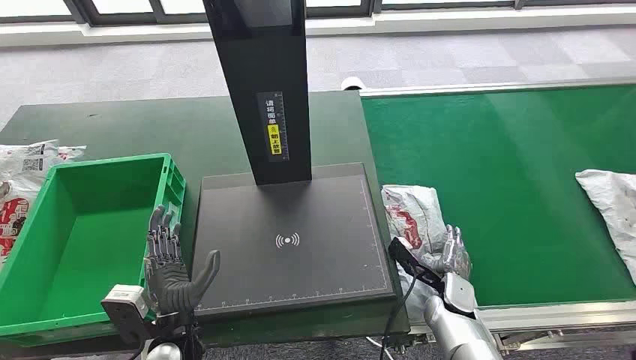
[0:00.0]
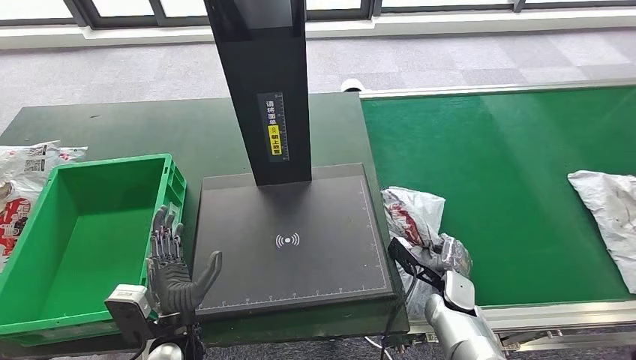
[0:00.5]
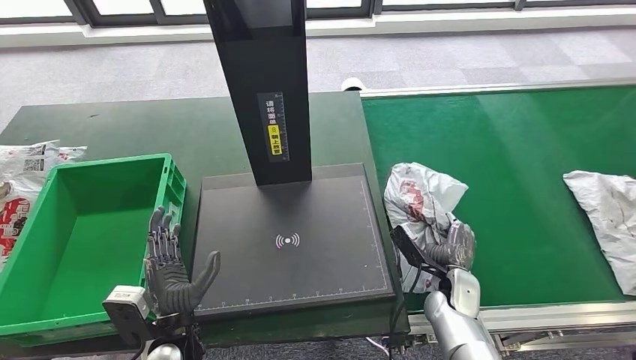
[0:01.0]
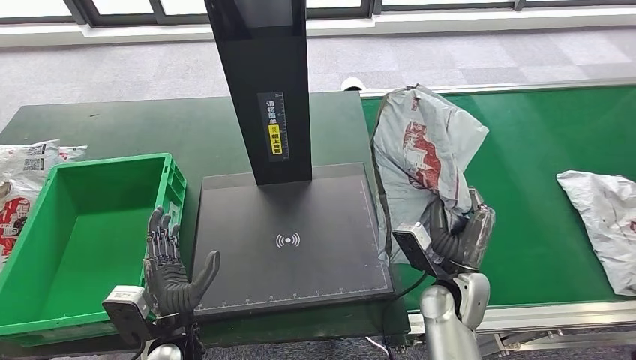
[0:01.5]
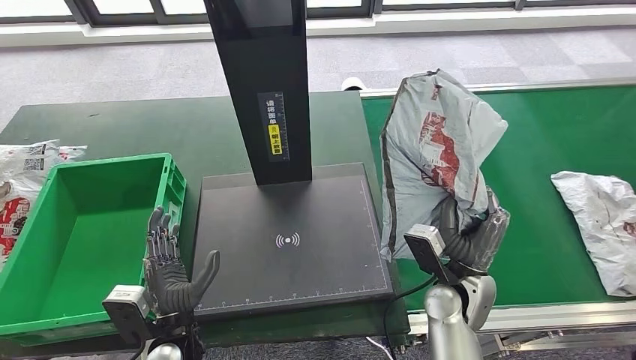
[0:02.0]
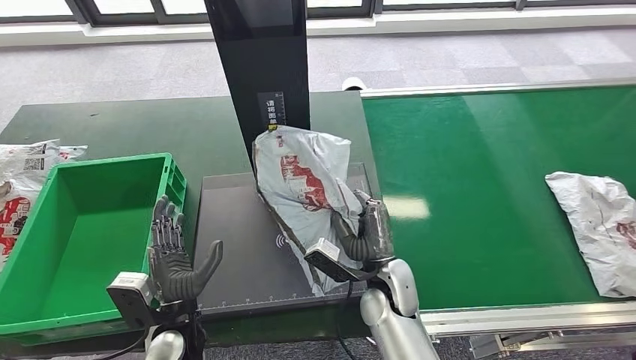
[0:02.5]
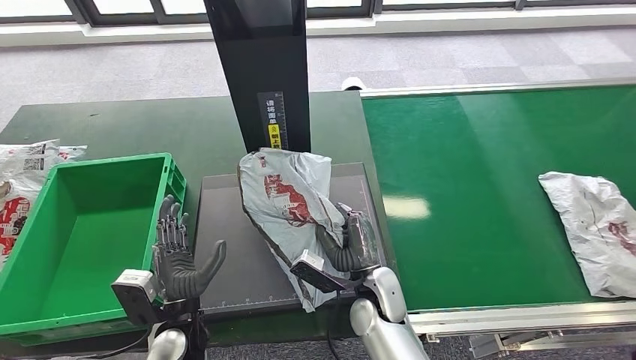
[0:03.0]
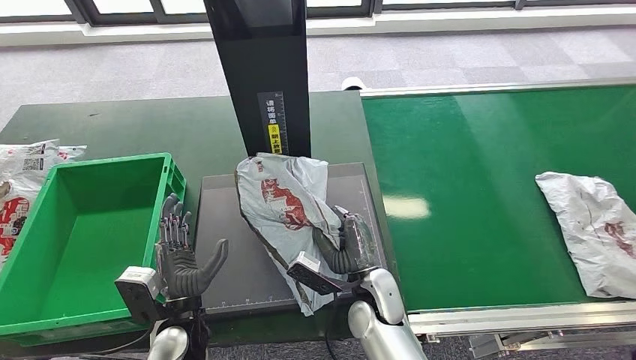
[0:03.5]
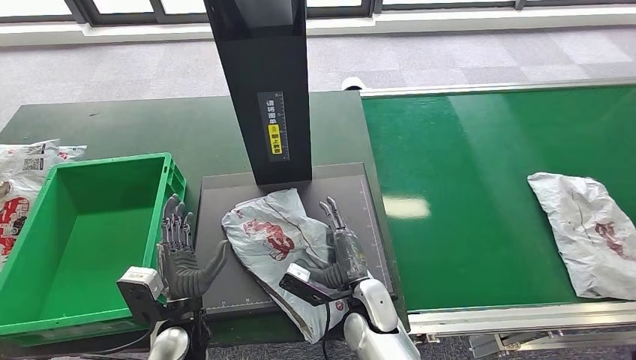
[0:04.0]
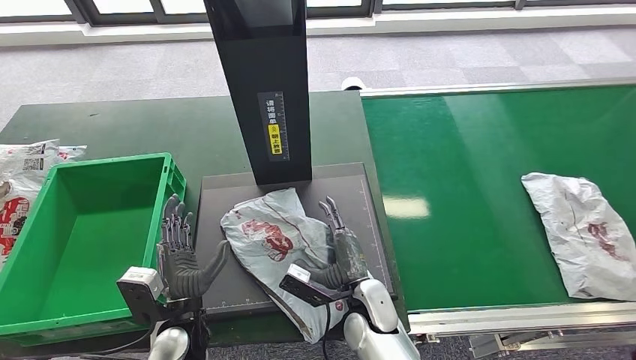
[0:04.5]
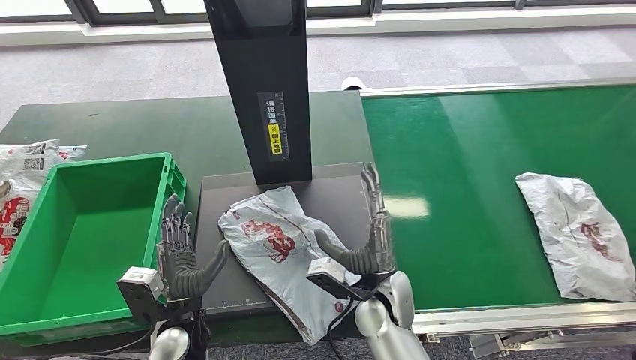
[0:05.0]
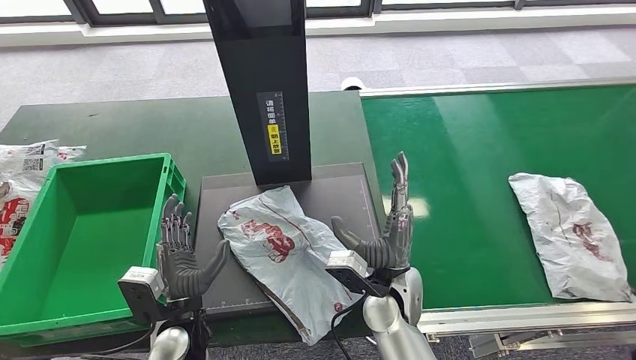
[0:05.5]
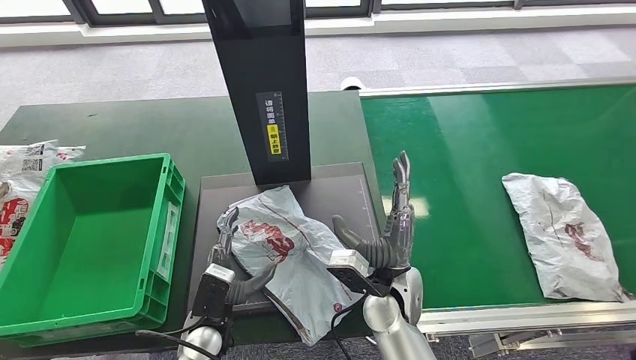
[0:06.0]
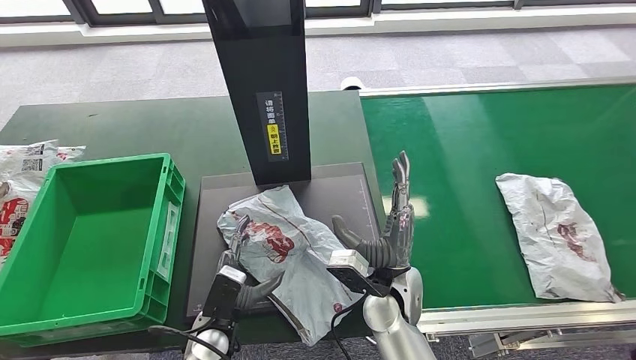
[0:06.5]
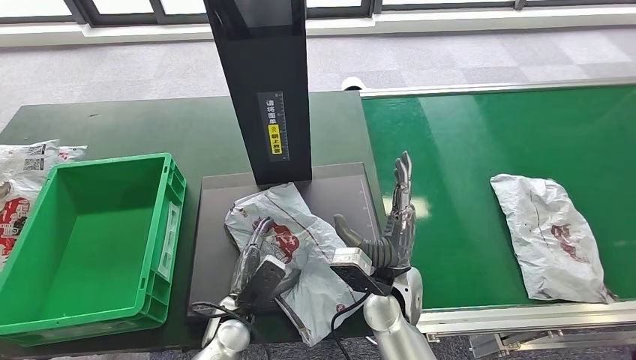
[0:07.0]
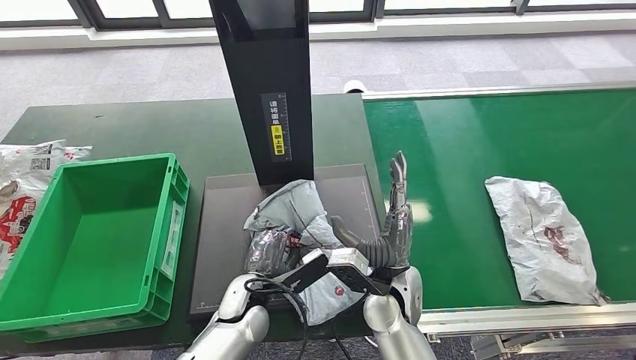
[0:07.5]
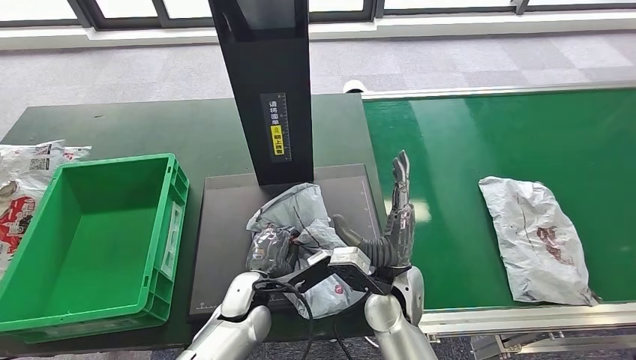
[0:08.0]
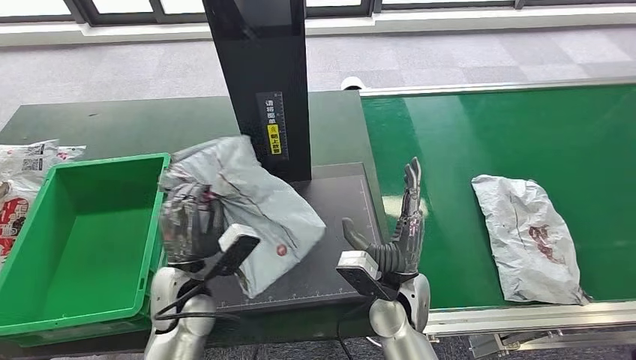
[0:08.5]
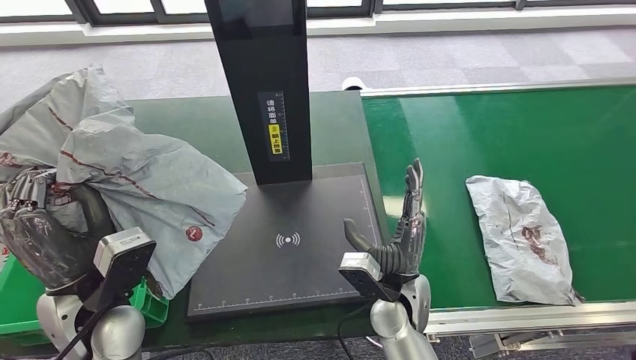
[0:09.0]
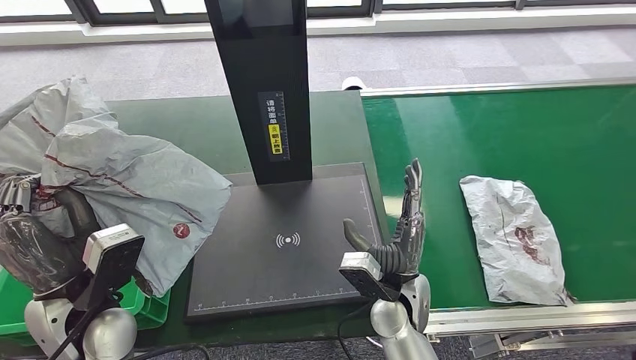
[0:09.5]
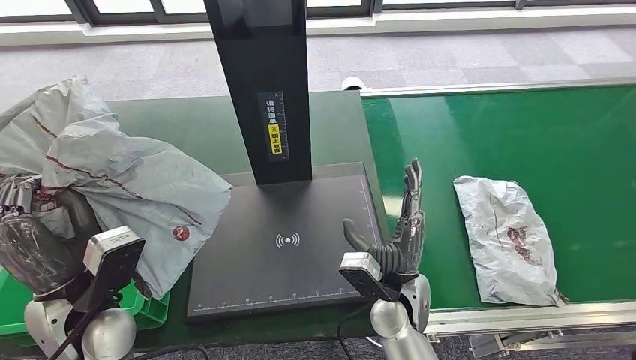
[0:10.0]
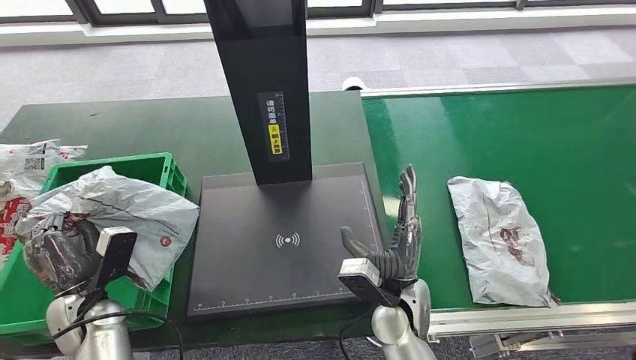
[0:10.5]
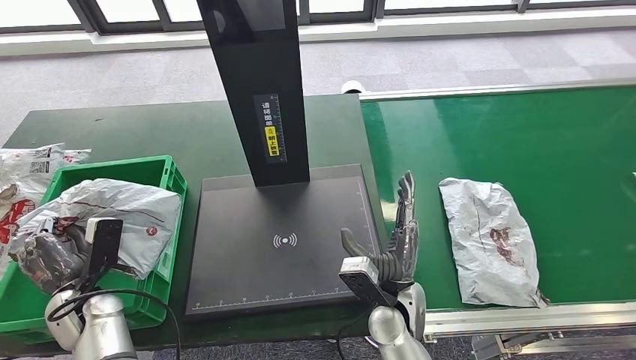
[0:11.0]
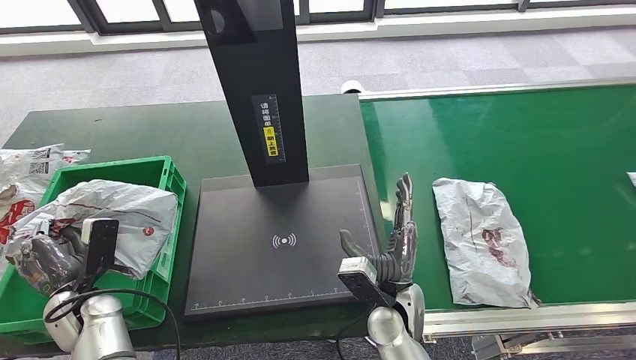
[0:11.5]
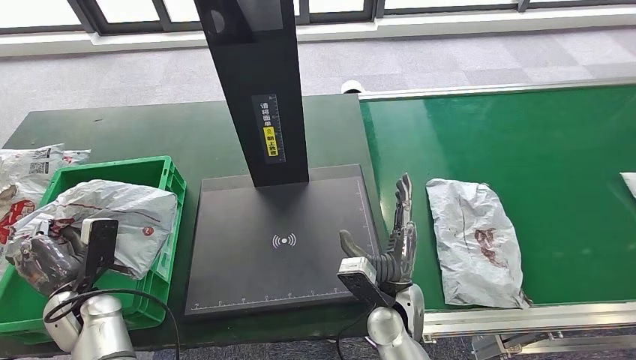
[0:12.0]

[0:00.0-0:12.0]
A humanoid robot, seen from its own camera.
Step, 0:00.0 to 0:01.5: Take the parcel off the conveyor belt.
Step, 0:02.0 to 0:04.5: Place the parcel onto the inbound machine.
Step, 0:05.0 to 0:08.5: Pick up the parcel from the inbound machine.
0:04.0 to 0:06.0: The right hand travels upward by approximately 5 cm.

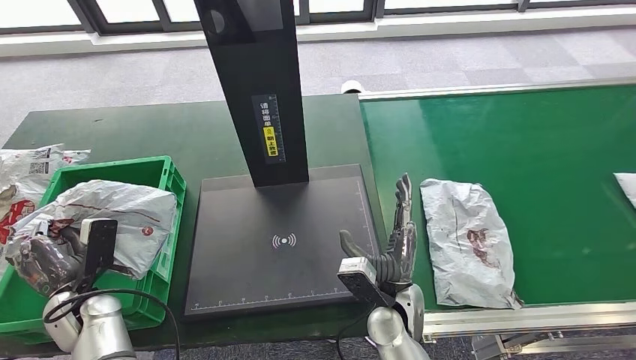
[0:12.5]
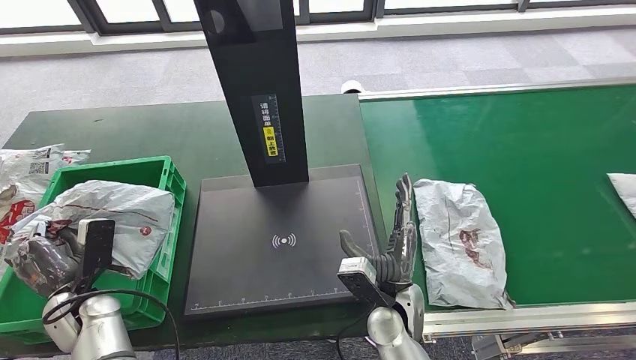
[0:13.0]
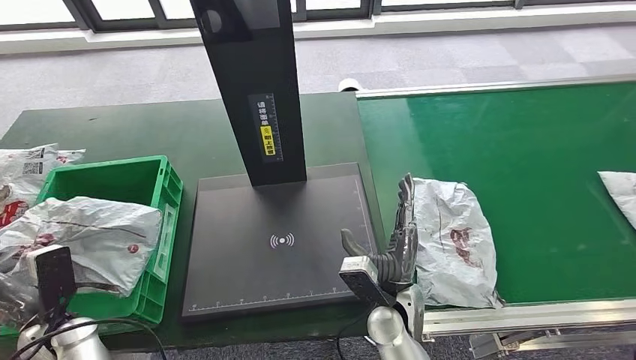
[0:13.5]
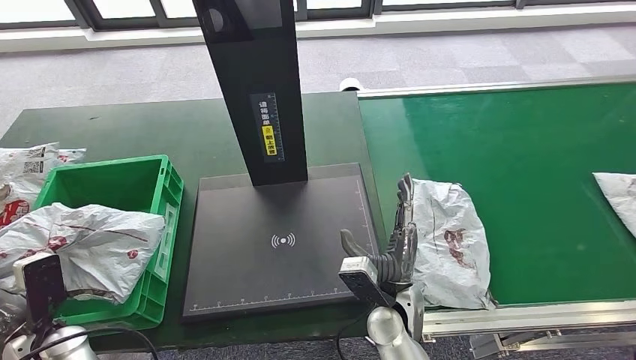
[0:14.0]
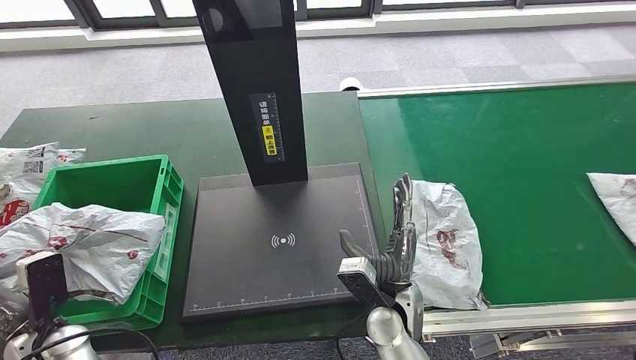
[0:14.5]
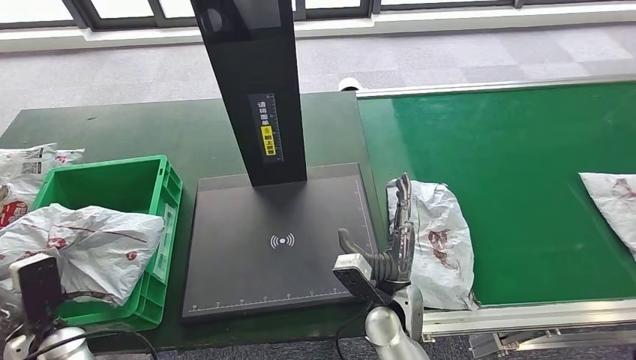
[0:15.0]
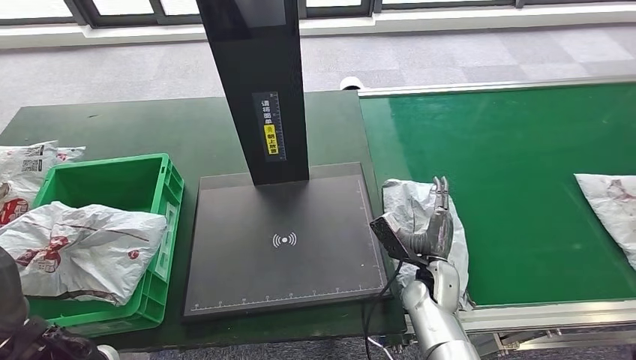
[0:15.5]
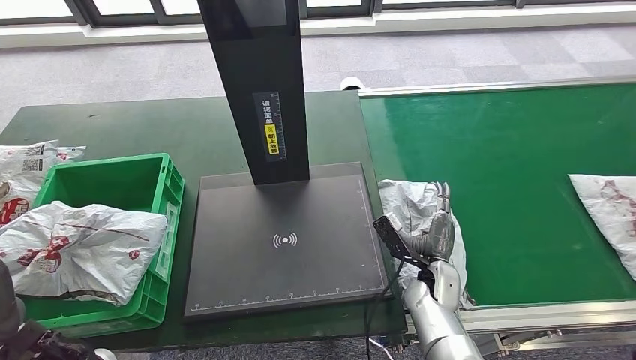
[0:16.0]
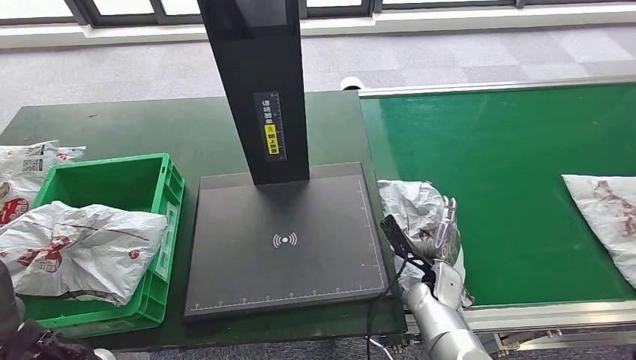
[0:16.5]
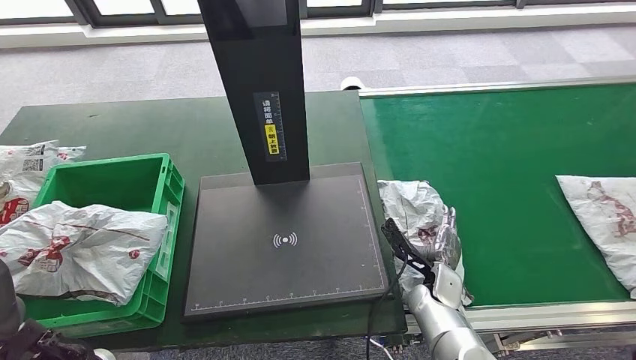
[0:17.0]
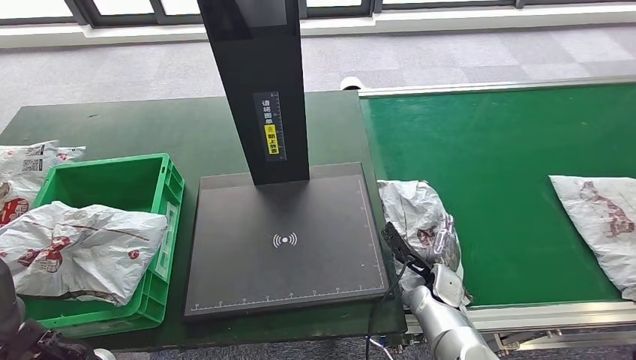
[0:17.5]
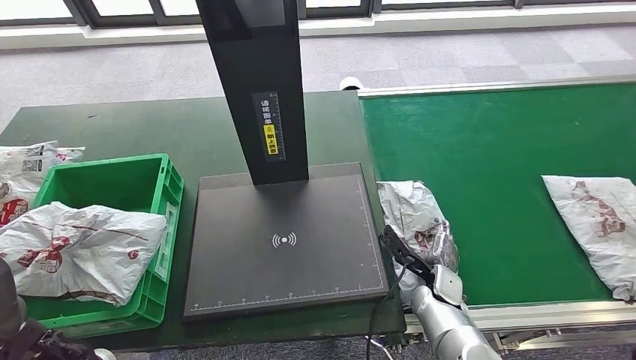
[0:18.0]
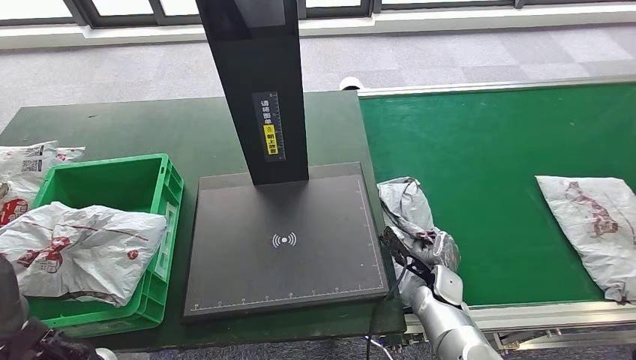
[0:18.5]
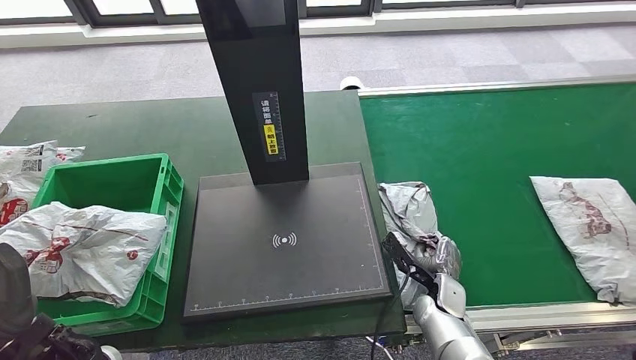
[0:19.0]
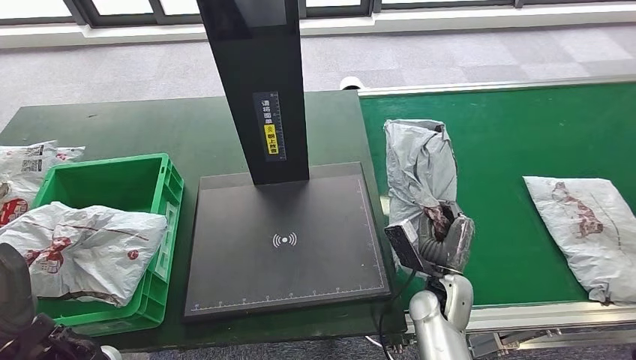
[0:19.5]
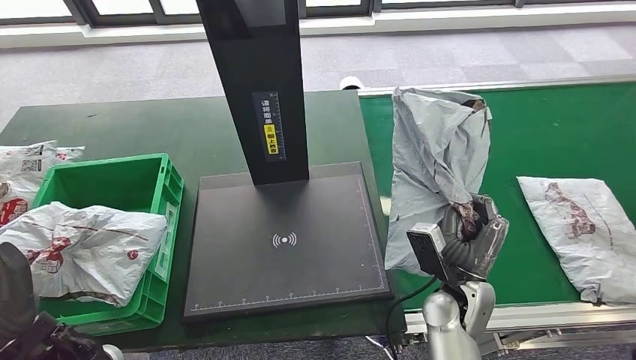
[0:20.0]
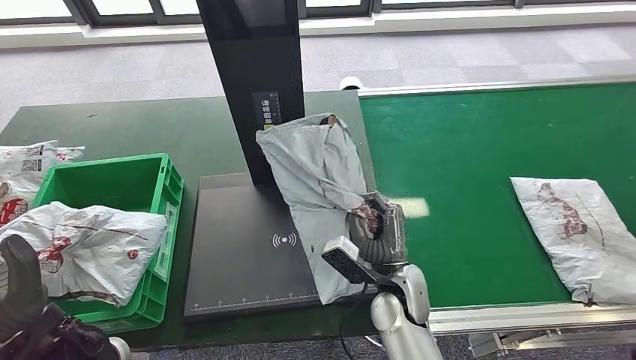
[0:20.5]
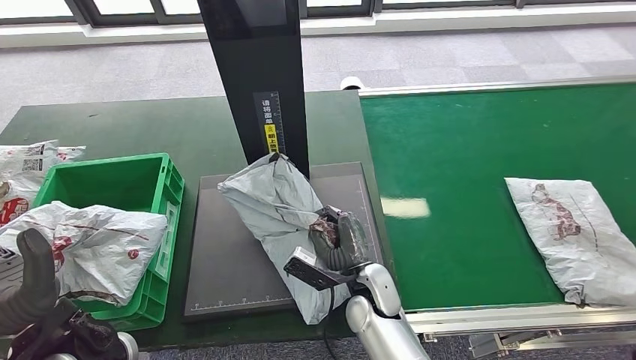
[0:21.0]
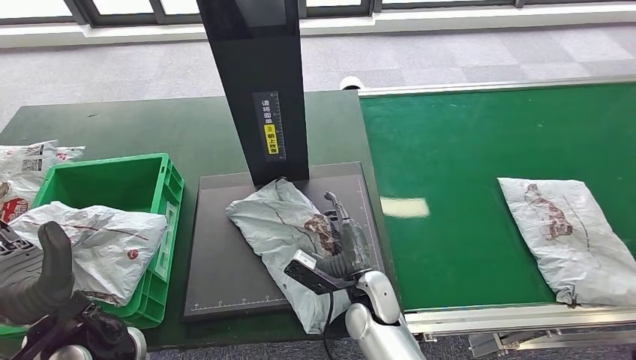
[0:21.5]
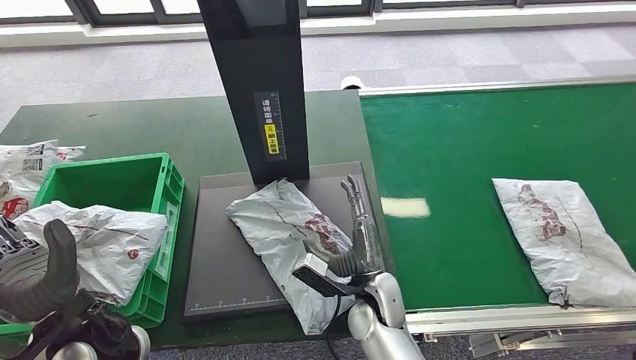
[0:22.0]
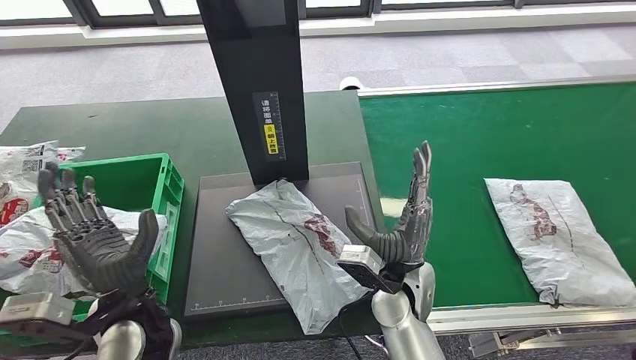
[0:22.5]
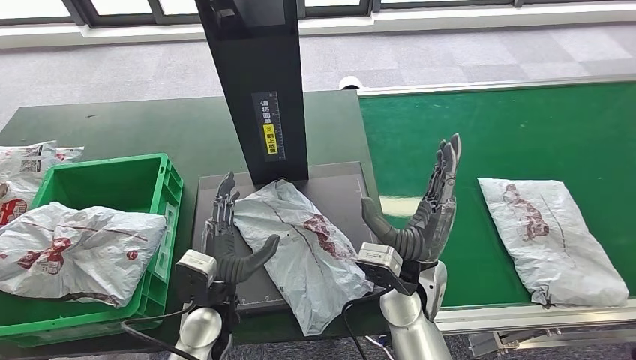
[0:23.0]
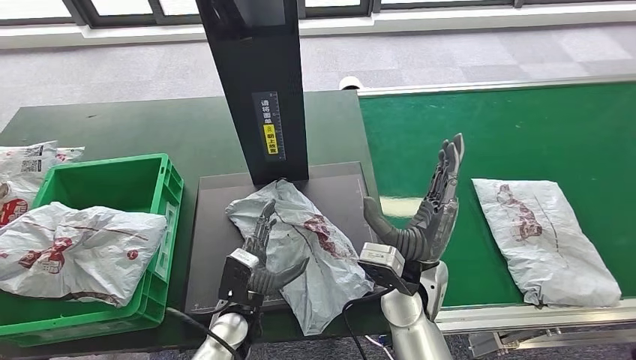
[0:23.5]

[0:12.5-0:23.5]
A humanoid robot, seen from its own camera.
Step, 0:12.5 to 0:14.5: Put the parcel inside the courier box.
Step, 0:15.0 to 0:19.5: Pick up the parcel from the conveyor belt.
Step, 0:20.0 to 0:23.0: Place the parcel onto the inbound machine.
0:14.5 to 0:16.0: The left hand goes approximately 15 cm upward and to the right, while the right hand moves to the right and downward, approximately 10 cm.
0:18.0 to 0:20.0: The right hand shifts about 10 cm upward.
0:21.5 to 0:23.5: The right hand shifts some 10 cm upward and to the right; the left hand heads to the right and downward, covering roughly 20 cm.
